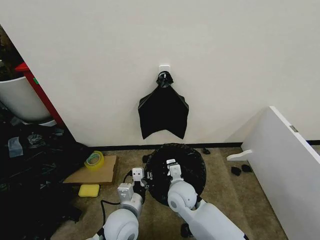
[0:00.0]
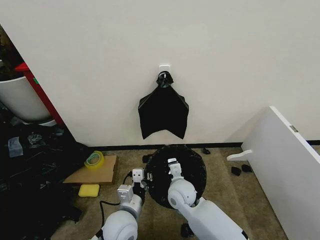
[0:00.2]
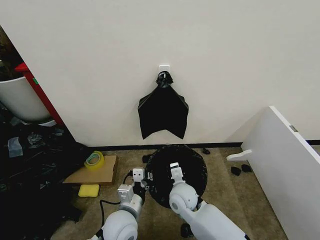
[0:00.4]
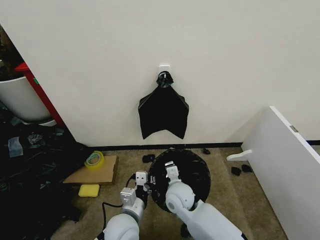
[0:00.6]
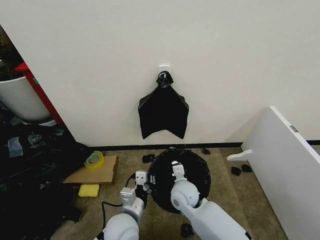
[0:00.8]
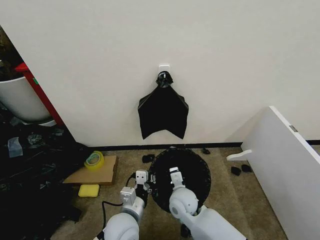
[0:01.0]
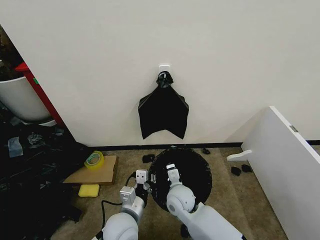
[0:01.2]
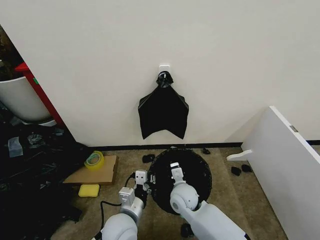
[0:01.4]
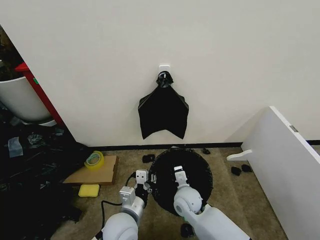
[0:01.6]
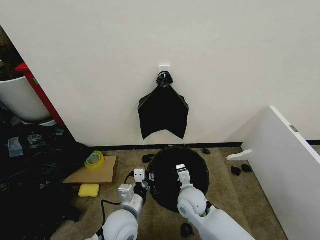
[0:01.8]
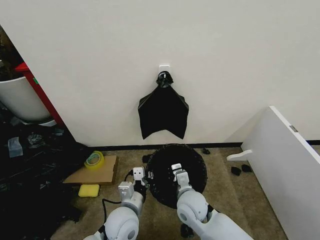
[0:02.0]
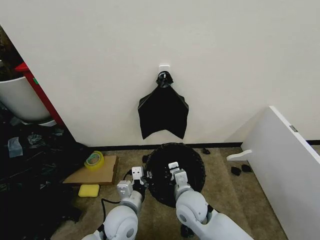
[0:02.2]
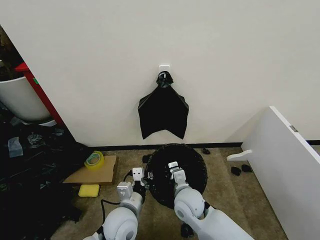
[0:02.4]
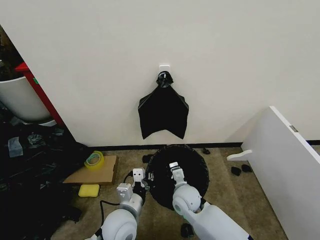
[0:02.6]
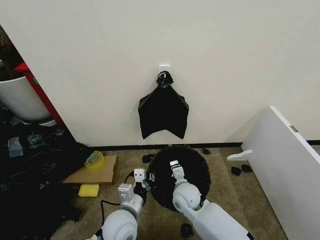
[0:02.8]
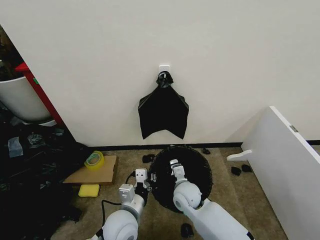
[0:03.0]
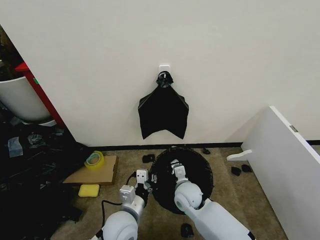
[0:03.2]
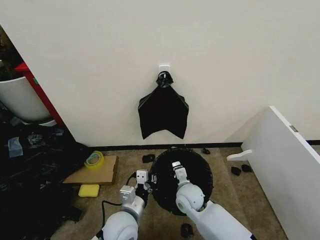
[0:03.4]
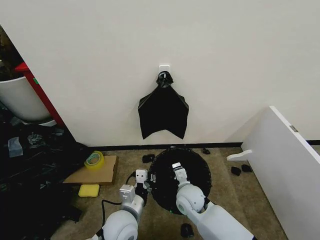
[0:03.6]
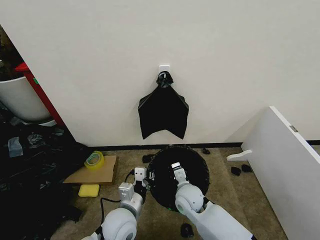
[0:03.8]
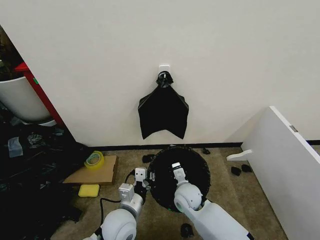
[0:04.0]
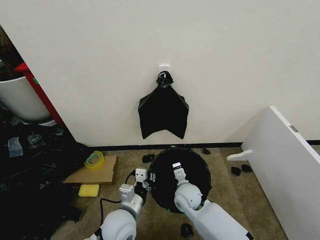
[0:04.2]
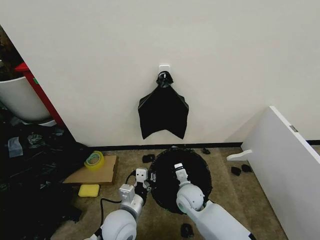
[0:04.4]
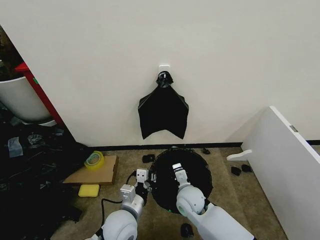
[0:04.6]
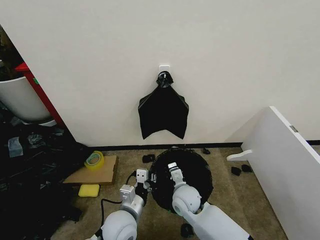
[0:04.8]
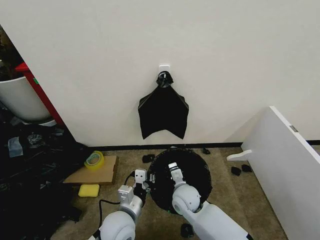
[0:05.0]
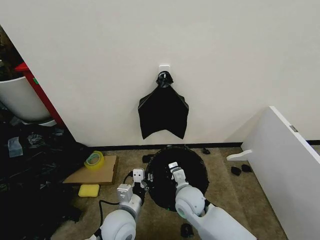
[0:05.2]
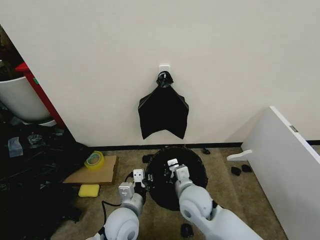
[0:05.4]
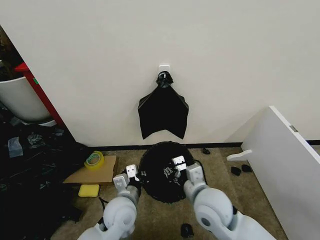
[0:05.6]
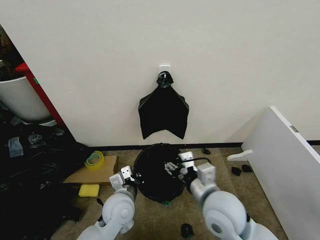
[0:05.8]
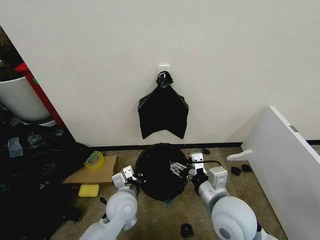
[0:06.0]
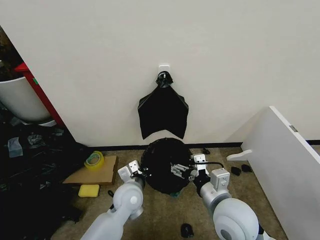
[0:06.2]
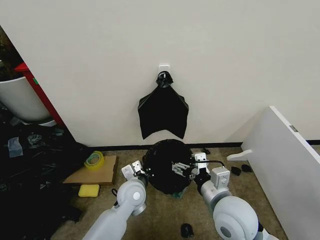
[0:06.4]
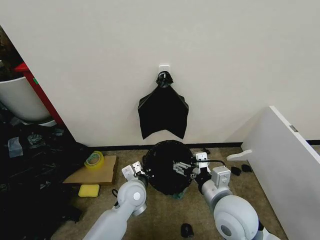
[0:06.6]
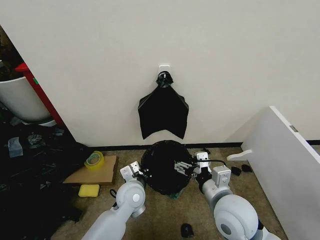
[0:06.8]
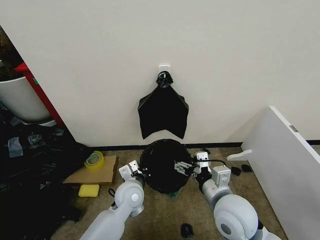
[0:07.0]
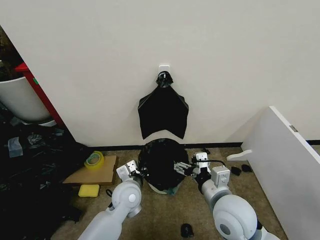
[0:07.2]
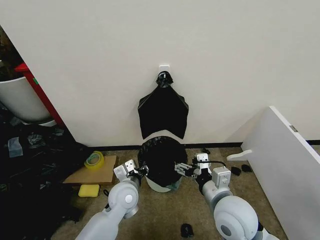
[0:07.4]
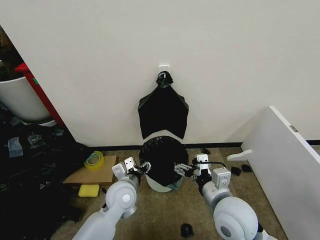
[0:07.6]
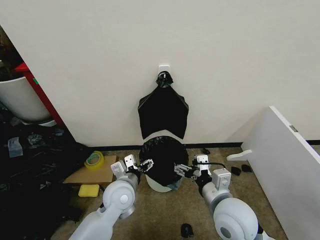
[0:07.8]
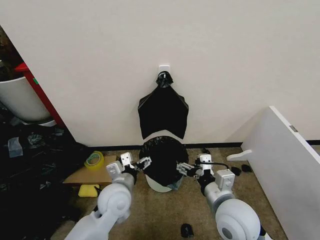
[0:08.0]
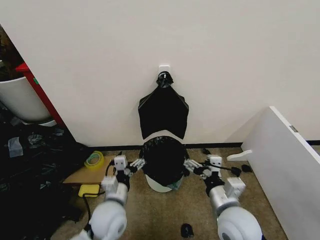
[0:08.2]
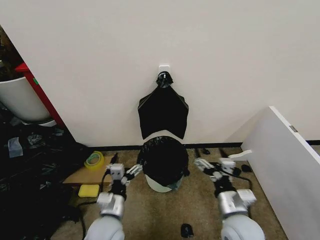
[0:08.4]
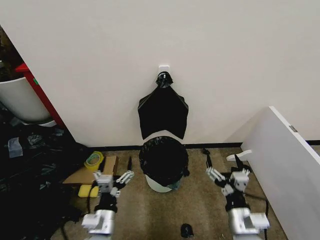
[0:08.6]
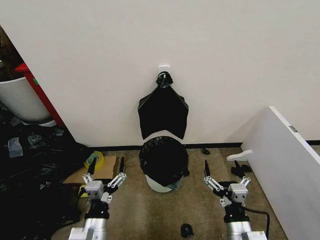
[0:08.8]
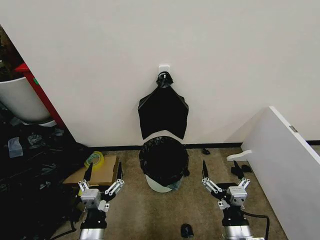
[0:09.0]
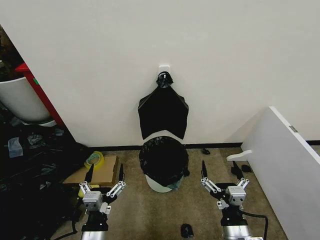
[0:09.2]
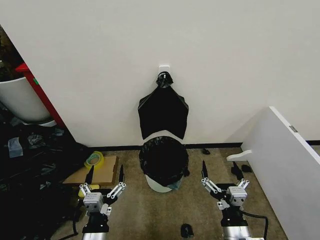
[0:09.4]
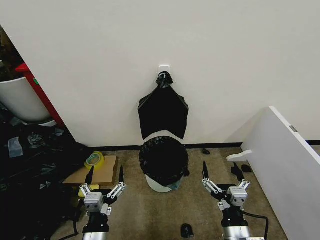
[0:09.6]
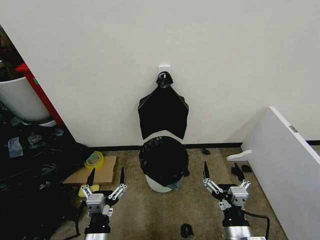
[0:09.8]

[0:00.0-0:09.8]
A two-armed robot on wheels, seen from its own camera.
Task of the whole recording: Place the garbage bag over the trash bin.
0:00.0 to 0:01.4: The grippers move only a little.
0:02.8 to 0:04.2: The grippers stay close to where they were, moving slightly.
0:04.2 to 0:05.6: The right gripper moves upward and backward, roughly 15 cm, and opens up.
0:05.6 to 0:07.0: The left gripper shifts roughly 5 cm forward, while the right gripper ends up approximately 5 cm from where it was, and opens.
0:07.0 to 0:08.4: The left gripper travels backward and to the left by about 10 cm, and opens its fingers. Meanwhile the right gripper shifts approximately 5 cm downward.
0:08.4 to 0:09.8: Both grippers travel together backward, approximately 10 cm.
